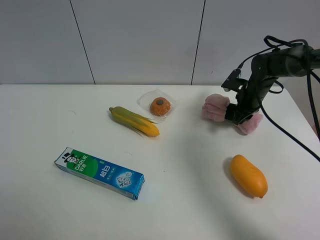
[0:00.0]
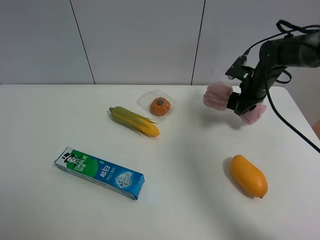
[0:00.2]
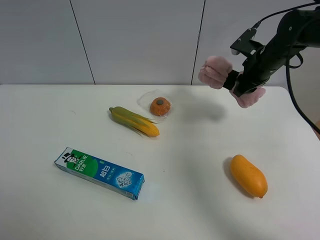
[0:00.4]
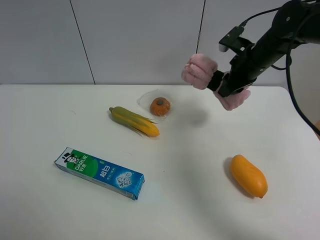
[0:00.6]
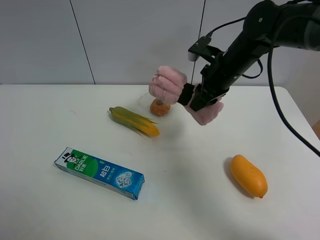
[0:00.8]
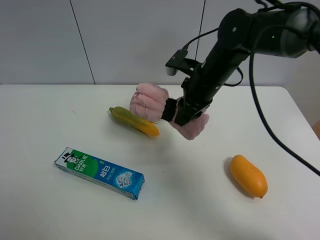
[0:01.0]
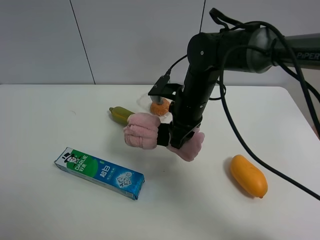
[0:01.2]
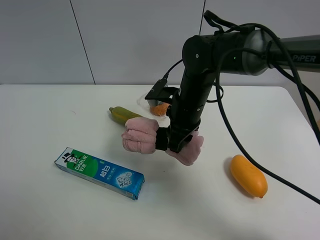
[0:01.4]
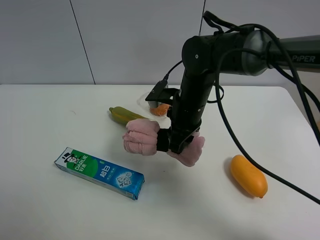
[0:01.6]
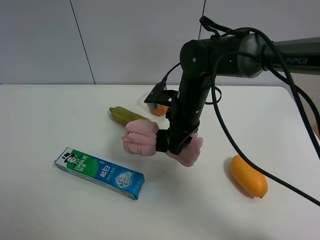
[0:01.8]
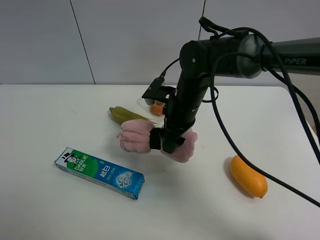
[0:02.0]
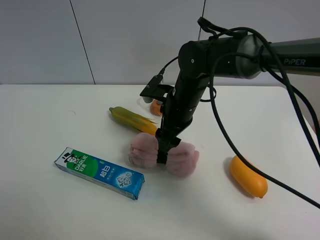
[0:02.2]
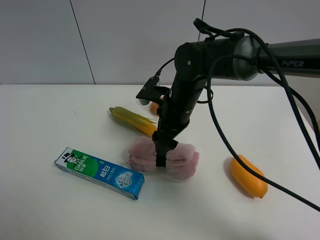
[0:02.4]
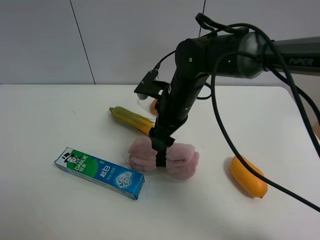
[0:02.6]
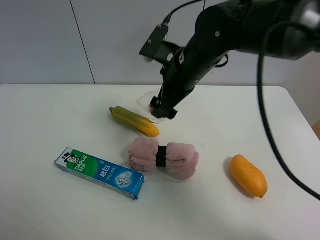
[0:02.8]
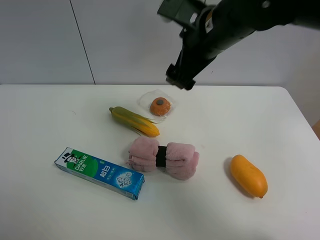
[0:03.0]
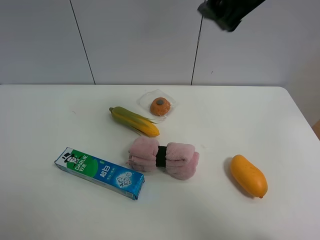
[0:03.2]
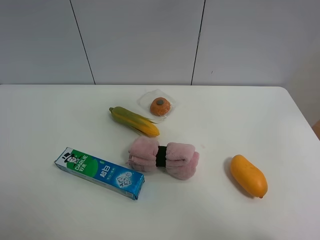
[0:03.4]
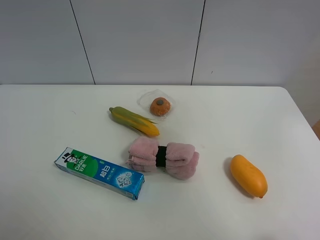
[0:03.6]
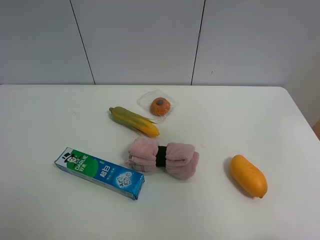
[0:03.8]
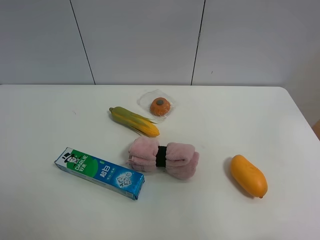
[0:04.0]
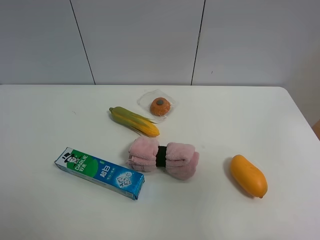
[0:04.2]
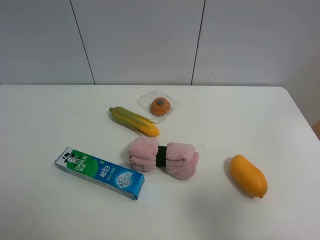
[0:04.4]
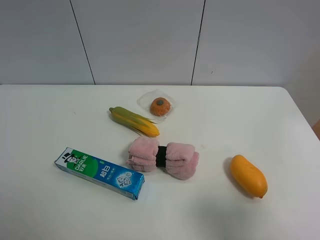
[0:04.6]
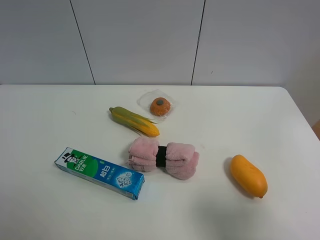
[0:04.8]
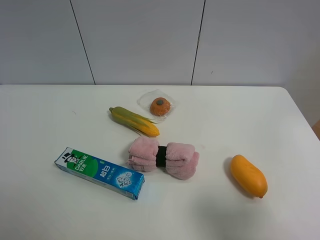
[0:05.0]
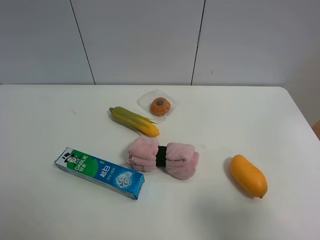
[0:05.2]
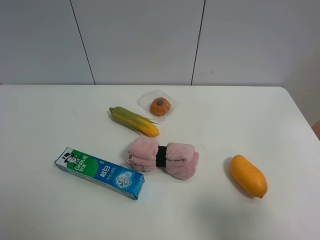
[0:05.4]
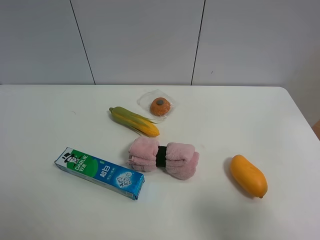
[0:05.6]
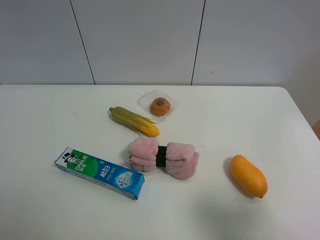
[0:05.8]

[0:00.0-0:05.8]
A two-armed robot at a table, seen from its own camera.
Task of the whole recording: the gripper move the object.
Step, 0:00.0 to 0:02.2: Place the pink towel on the table with the right gripper.
0:00.0 to 0:01.4: The right gripper is displaced to the left and backward by approximately 25 cm.
0:01.4 to 0:02.8: The right gripper heads upward, covering approximately 10 cm, and opens its fingers.
0:02.8 to 0:04.4: The right gripper is displaced backward and to the right by roughly 40 cm.
